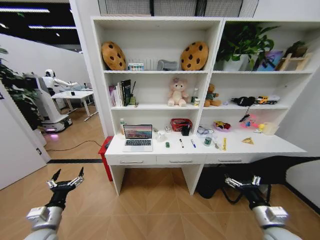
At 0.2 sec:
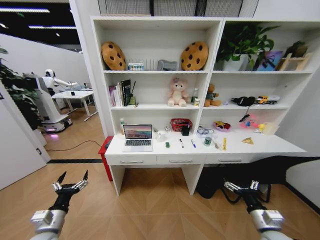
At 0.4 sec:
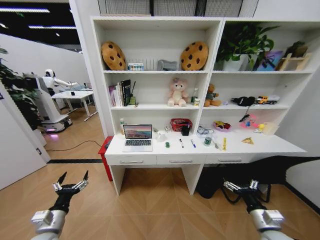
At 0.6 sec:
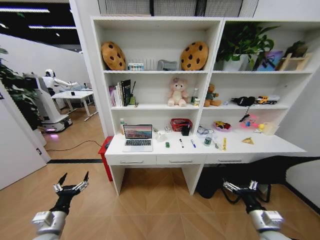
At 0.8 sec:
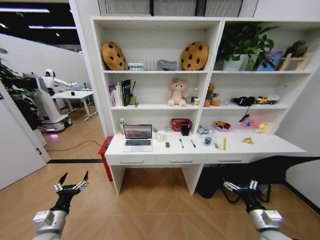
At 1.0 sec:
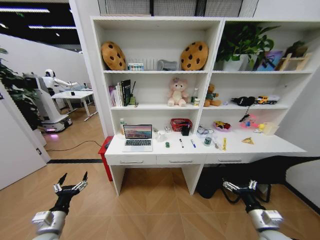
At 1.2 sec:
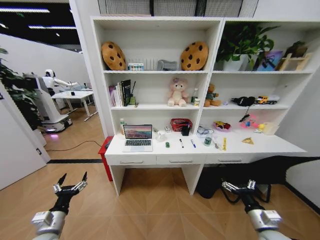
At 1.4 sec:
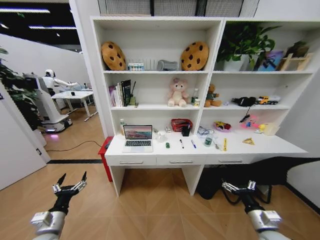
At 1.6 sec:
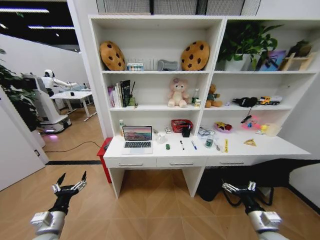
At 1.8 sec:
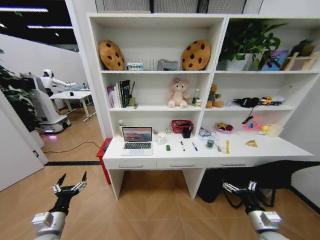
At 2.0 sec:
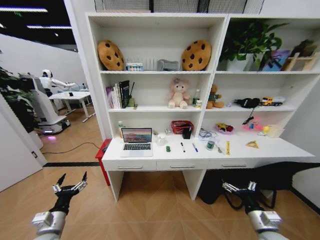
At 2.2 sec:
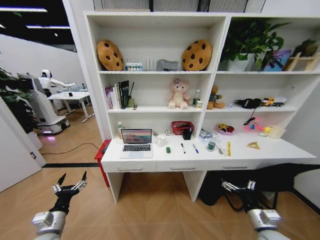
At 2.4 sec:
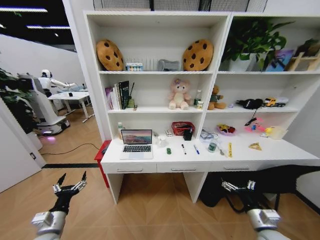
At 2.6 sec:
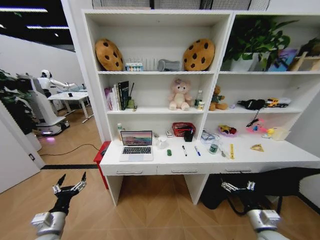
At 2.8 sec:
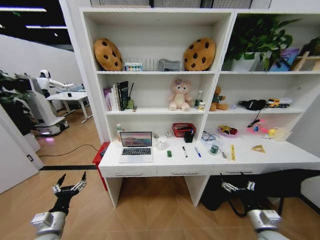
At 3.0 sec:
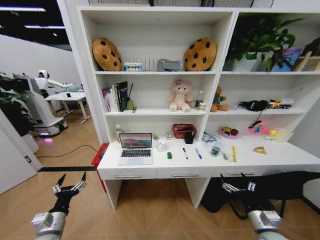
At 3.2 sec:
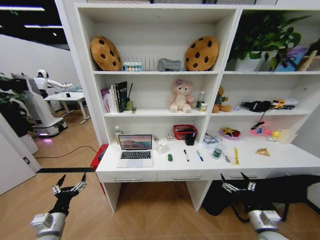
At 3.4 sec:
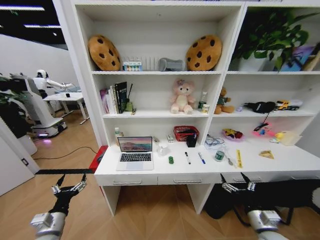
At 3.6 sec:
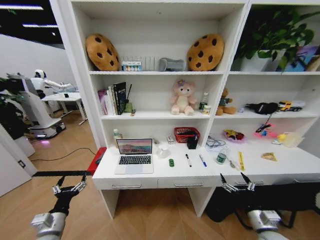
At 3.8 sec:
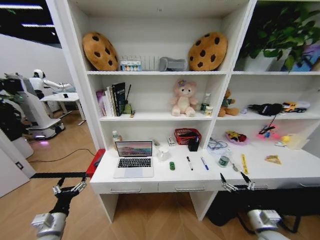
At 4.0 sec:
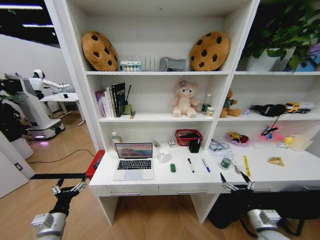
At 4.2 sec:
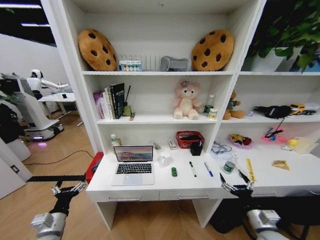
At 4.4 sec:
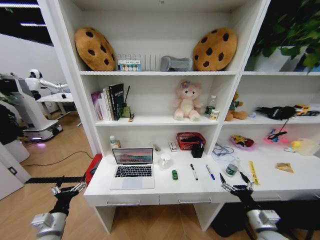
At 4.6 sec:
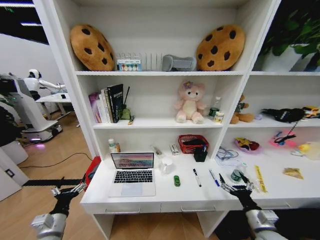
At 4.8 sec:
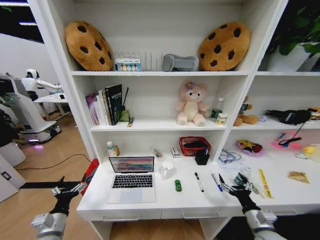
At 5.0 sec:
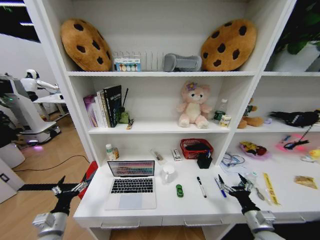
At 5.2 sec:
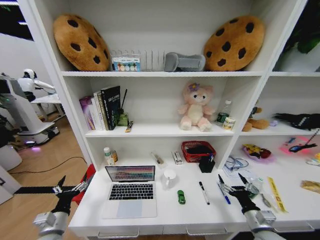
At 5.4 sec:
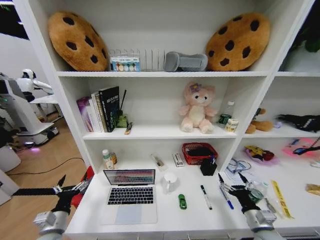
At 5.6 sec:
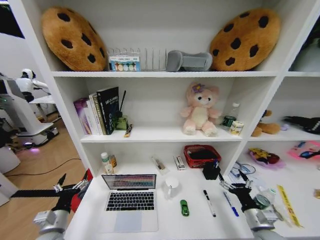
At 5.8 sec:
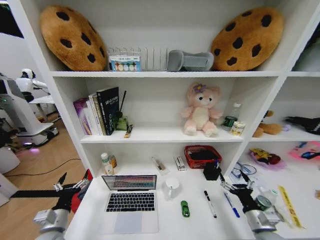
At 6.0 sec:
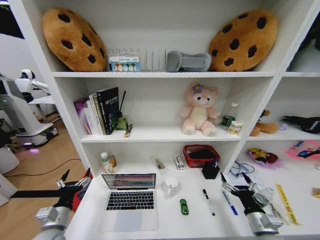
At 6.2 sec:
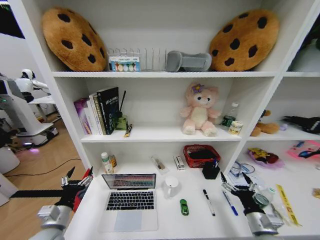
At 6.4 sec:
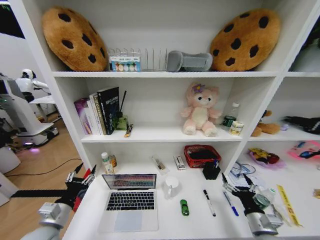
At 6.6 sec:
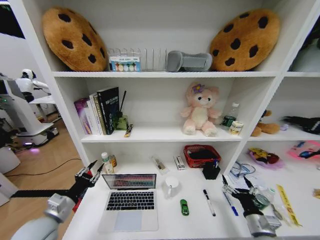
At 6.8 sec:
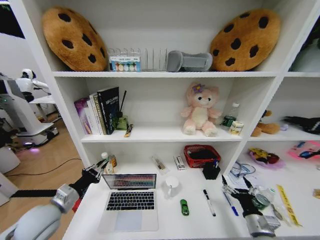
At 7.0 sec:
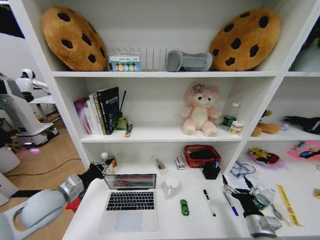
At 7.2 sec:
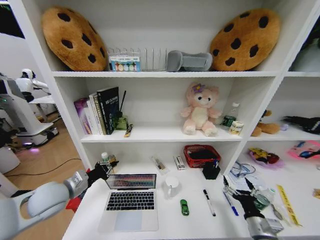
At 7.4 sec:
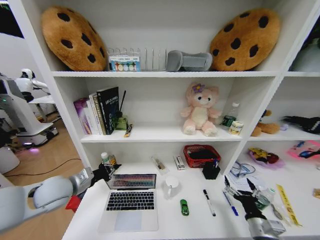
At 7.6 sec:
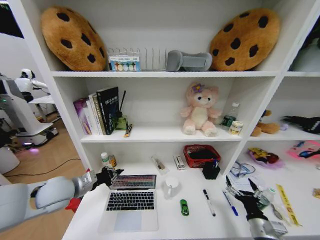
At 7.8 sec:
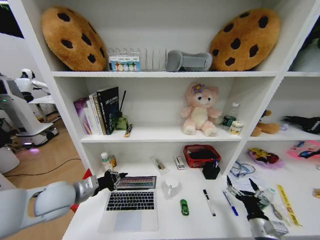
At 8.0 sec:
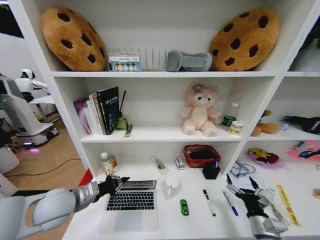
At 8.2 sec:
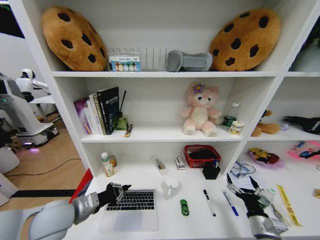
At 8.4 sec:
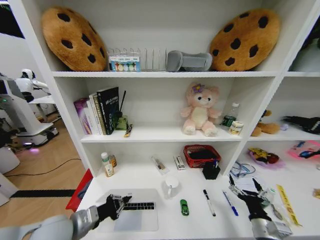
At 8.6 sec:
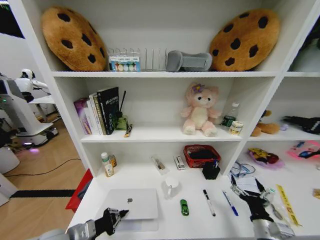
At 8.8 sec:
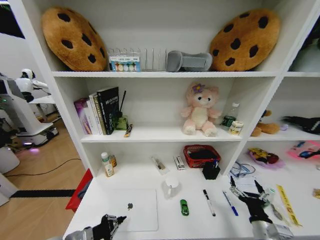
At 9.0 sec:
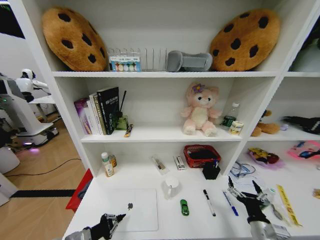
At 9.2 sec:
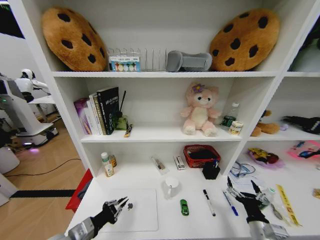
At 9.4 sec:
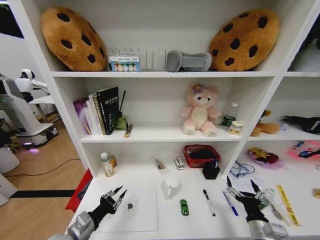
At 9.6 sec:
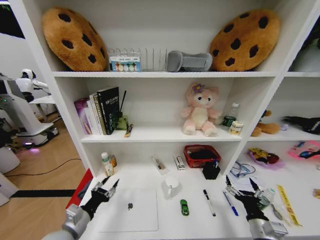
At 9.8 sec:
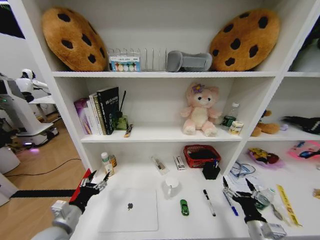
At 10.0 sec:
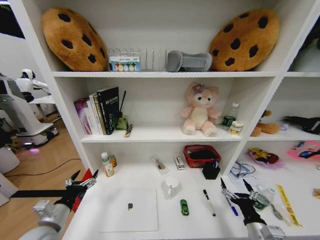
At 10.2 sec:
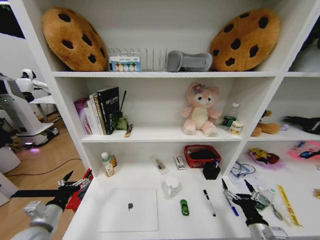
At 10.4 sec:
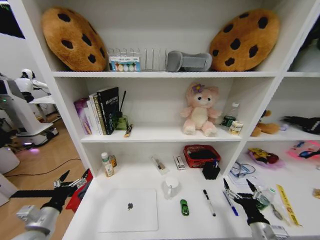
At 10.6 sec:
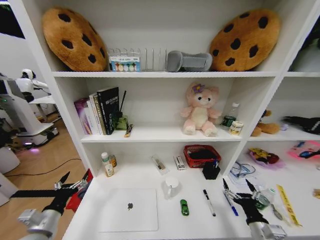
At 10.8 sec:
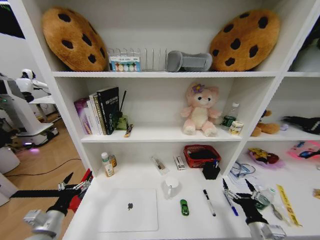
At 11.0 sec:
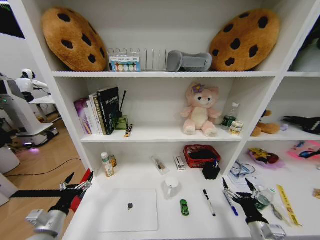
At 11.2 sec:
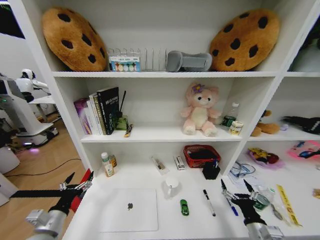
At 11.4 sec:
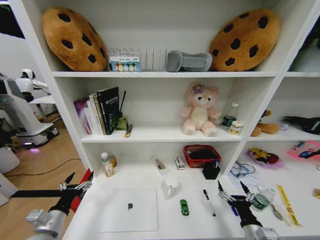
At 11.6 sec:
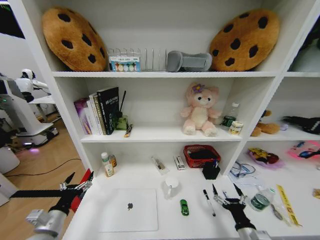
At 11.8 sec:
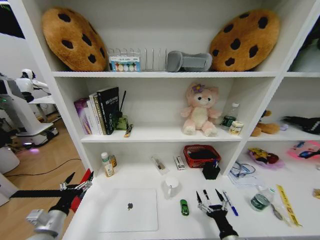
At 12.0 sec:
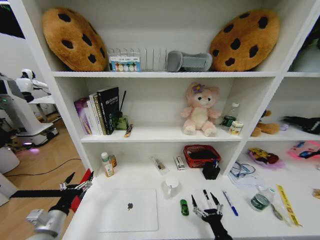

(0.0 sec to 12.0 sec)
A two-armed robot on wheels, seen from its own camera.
Task of the whole recording: Organize the objects on the table.
6.0 sec - 7.6 sec: The left gripper travels upward and forward by some 15 cm, and closes.
7.6 sec - 9.0 sec: The left gripper moves backward and downward, about 20 cm.
9.0 sec - 10.4 sec: The left gripper goes approximately 5 cm to the left, and opens.
10.4 sec - 12.0 sec: The right gripper heads to the left and downward, covering roughly 10 cm.

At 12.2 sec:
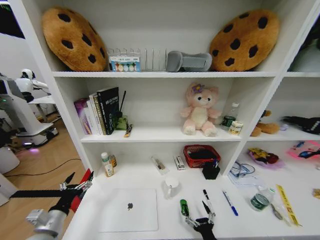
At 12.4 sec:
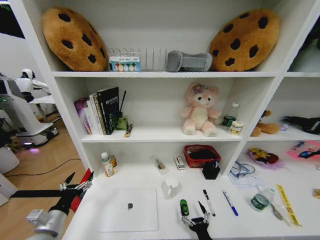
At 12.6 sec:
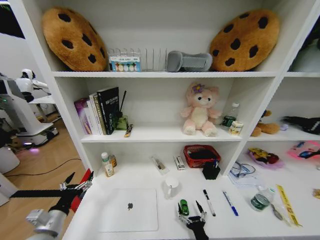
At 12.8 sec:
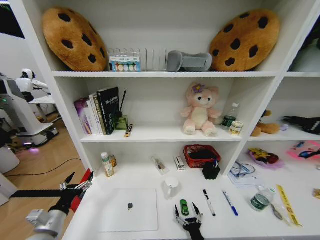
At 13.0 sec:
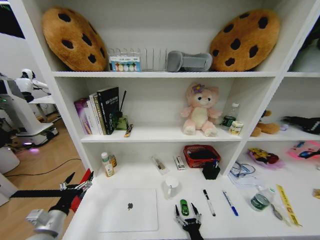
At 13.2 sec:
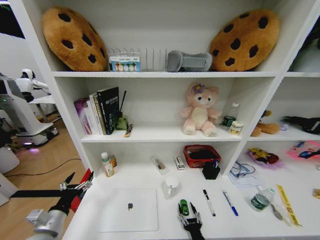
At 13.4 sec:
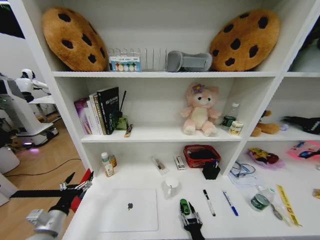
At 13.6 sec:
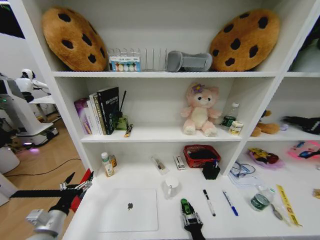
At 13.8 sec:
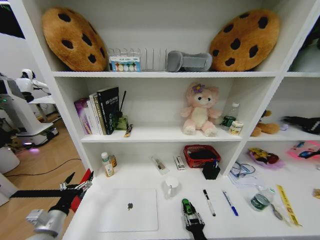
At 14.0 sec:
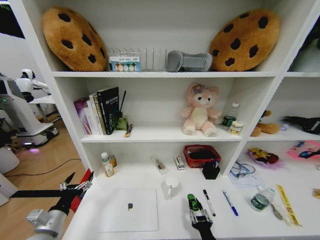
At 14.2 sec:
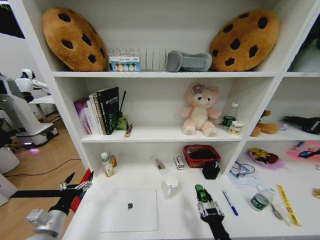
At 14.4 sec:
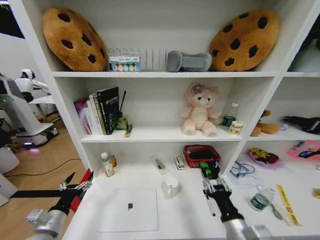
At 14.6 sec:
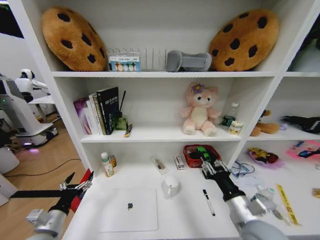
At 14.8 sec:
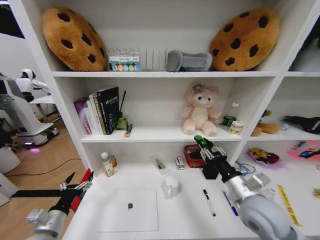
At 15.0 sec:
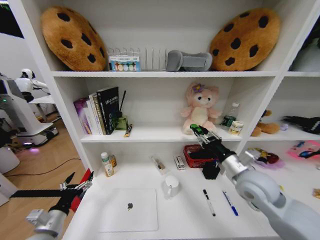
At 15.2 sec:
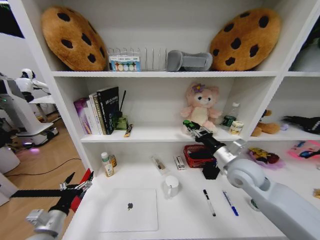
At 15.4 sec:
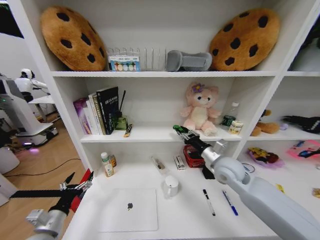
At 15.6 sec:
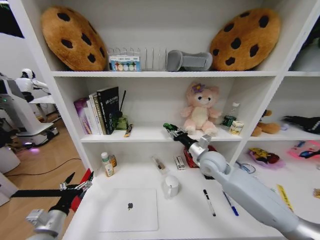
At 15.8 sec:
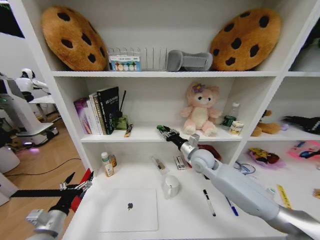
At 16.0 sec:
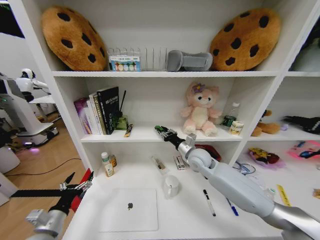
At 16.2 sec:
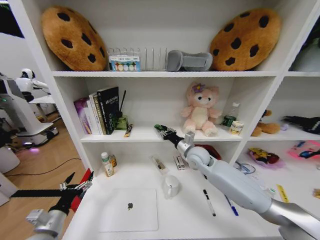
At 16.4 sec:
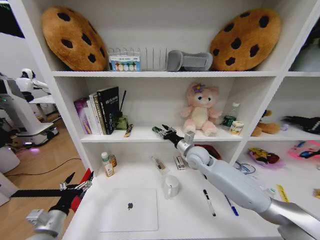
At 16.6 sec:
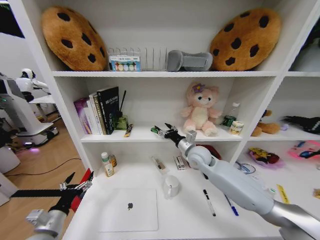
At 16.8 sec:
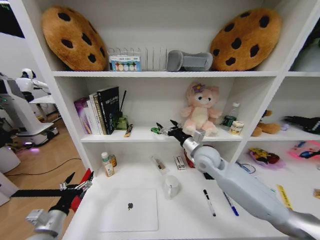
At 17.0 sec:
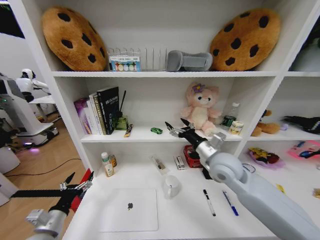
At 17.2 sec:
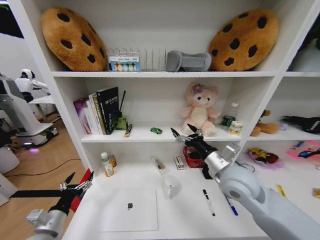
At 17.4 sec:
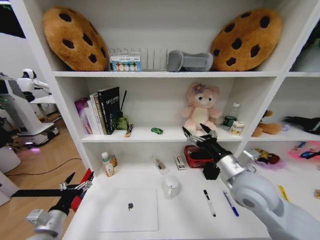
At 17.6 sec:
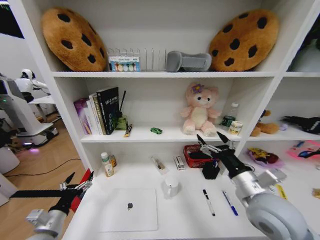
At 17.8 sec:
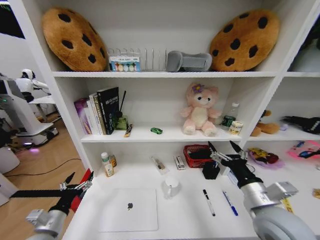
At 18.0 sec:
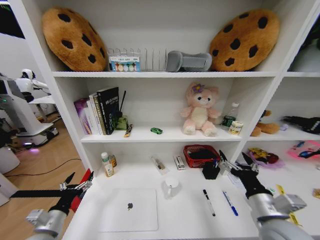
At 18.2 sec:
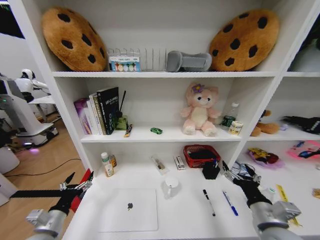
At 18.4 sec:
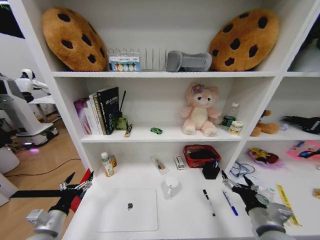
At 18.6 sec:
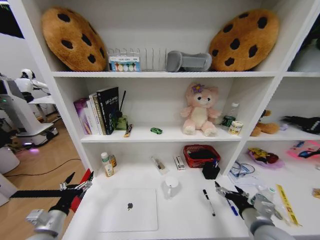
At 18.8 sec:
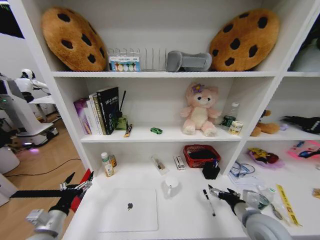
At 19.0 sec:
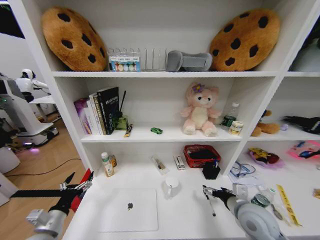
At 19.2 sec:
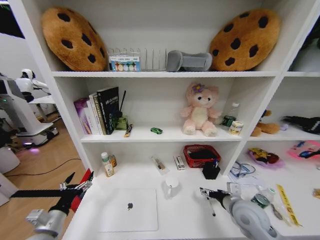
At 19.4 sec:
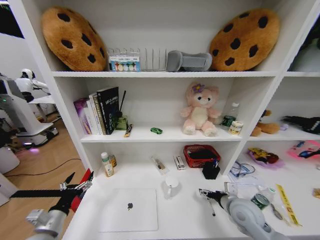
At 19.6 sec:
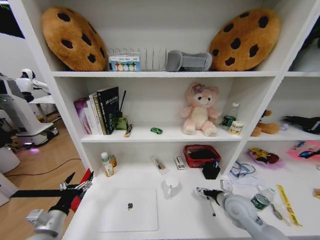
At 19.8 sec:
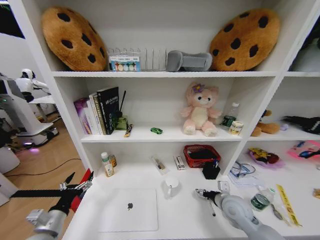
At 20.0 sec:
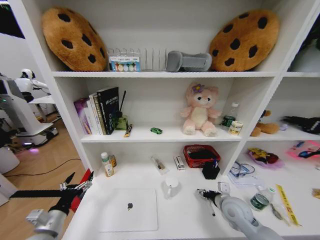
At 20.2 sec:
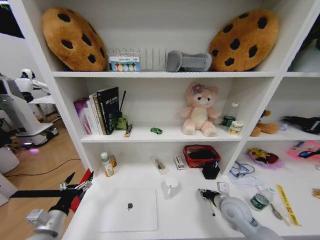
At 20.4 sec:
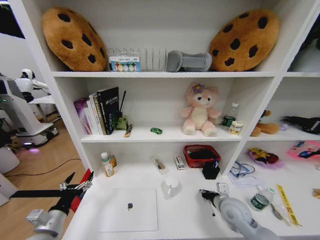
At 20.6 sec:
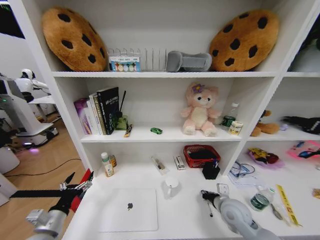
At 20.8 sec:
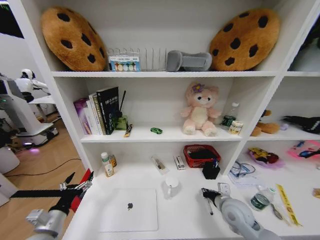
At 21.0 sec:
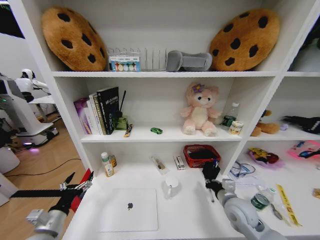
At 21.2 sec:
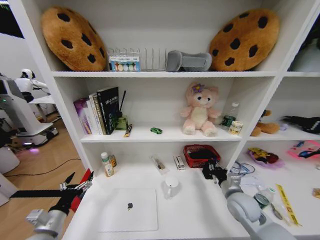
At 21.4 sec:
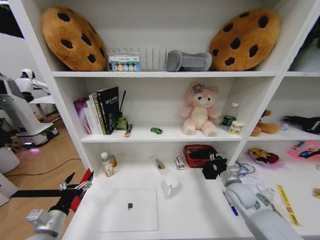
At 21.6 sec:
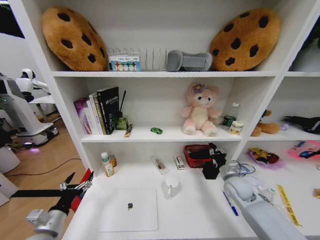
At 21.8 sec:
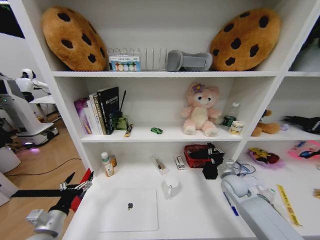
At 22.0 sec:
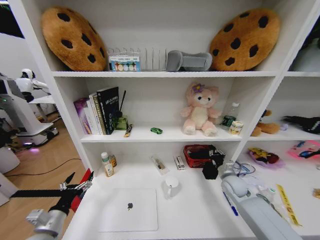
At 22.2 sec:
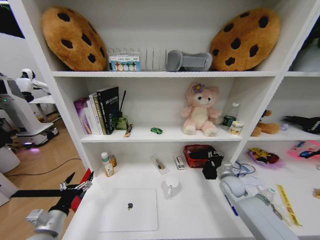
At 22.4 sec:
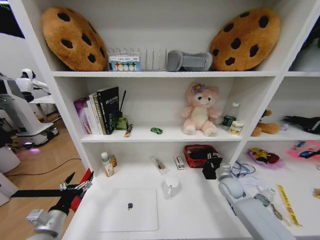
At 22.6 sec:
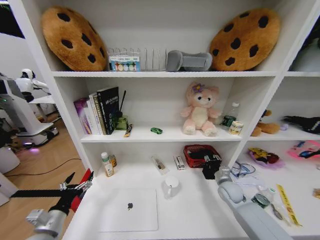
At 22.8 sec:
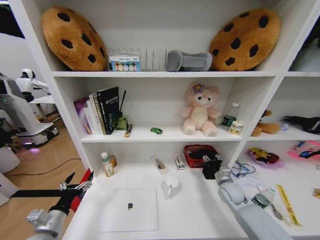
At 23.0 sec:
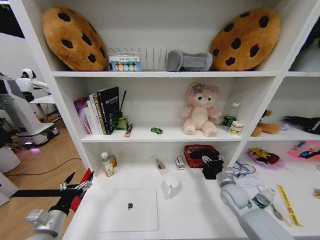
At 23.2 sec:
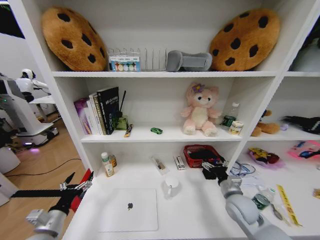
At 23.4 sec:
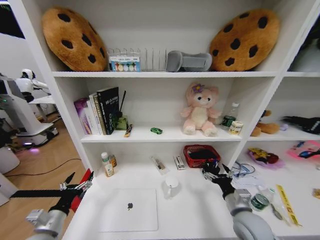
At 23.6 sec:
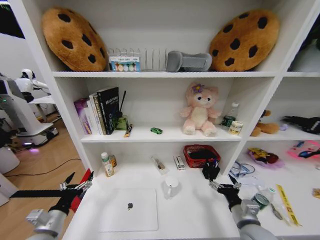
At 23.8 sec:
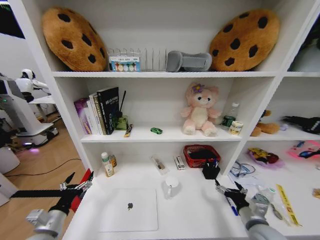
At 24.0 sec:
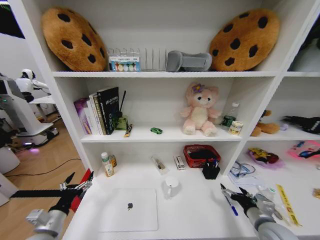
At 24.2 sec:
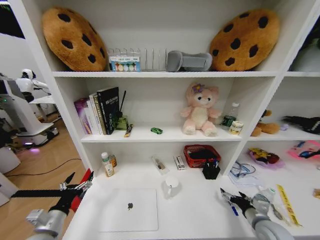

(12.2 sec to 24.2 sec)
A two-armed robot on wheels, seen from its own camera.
Task of the whole recording: Organize the objects on the table.
12.2 sec - 13.8 sec: The right gripper shifts by roughly 5 cm, and closes its fingers.
13.8 sec - 15.2 sec: The right gripper is displaced upward and forward by roughly 40 cm.
15.2 sec - 16.6 sec: The right gripper goes about 15 cm to the left and forward, and opens up.
16.6 sec - 18.2 sec: The right gripper is displaced backward and to the right by some 30 cm.
18.2 sec - 19.8 sec: The right gripper shifts roughly 15 cm forward and downward.
19.8 sec - 21.2 sec: The right gripper closes its fingers.
21.2 sec - 22.6 sec: The right gripper heads forward and downward, covering roughly 10 cm.
22.6 sec - 24.2 sec: The right gripper moves backward, about 15 cm, and opens up.
